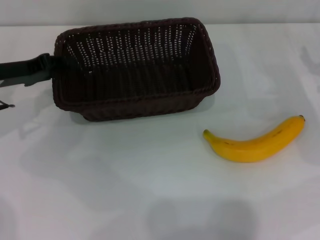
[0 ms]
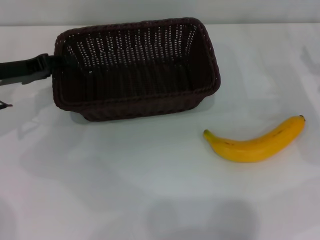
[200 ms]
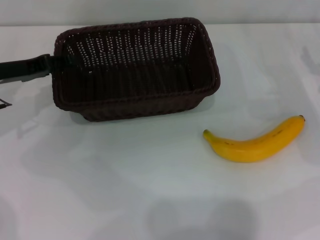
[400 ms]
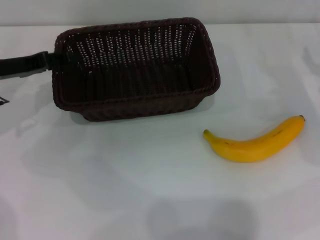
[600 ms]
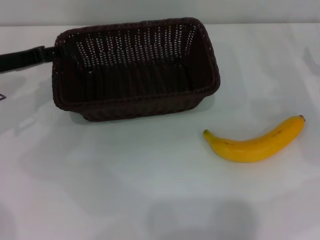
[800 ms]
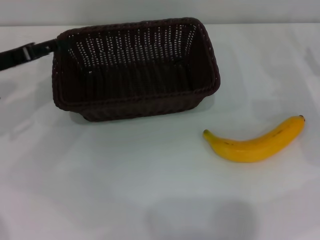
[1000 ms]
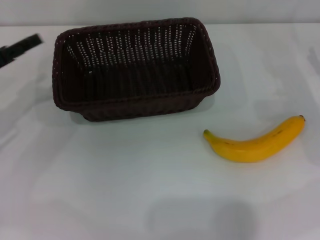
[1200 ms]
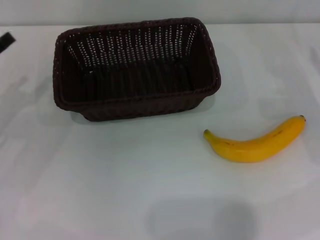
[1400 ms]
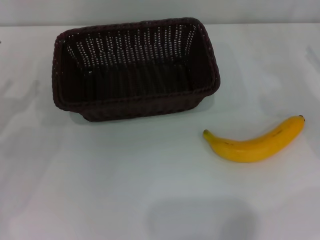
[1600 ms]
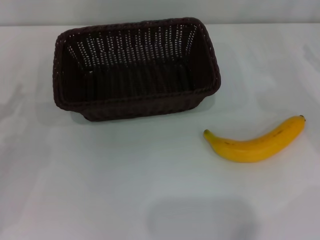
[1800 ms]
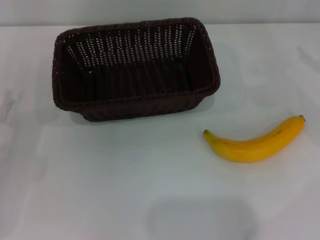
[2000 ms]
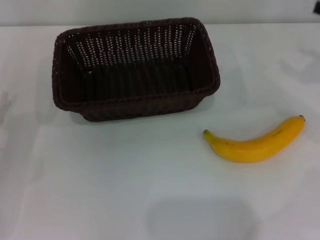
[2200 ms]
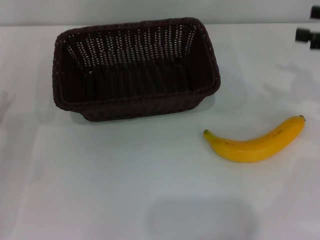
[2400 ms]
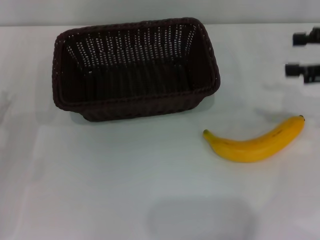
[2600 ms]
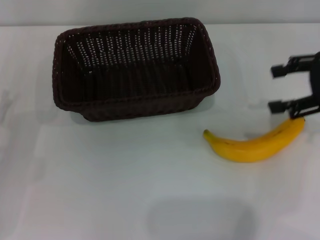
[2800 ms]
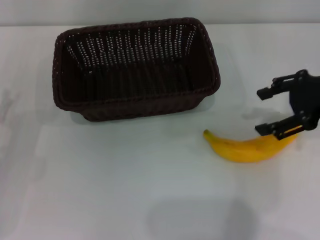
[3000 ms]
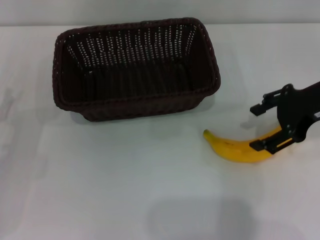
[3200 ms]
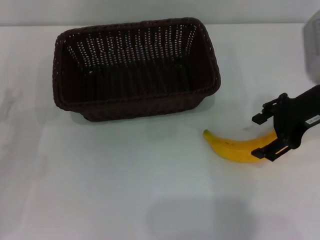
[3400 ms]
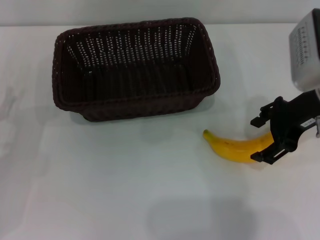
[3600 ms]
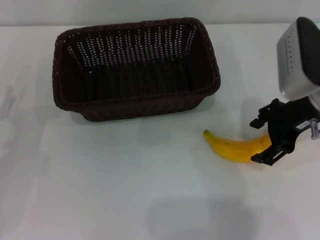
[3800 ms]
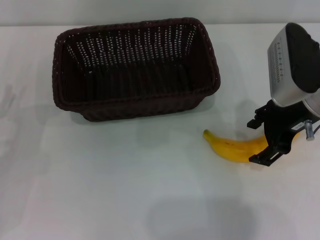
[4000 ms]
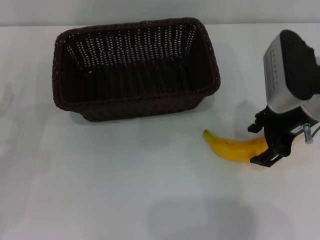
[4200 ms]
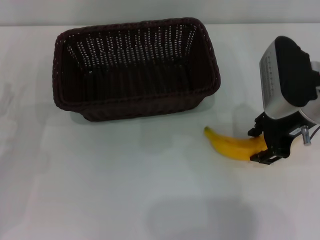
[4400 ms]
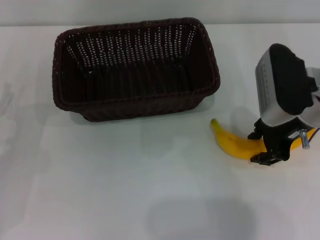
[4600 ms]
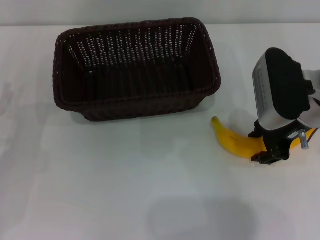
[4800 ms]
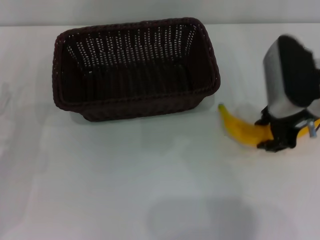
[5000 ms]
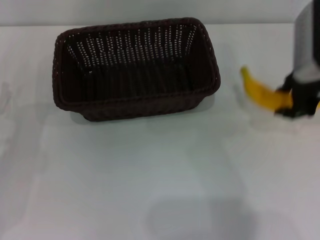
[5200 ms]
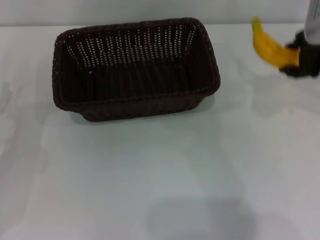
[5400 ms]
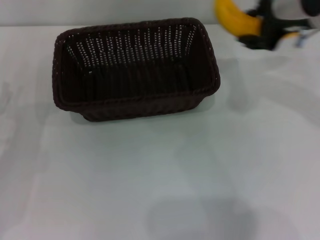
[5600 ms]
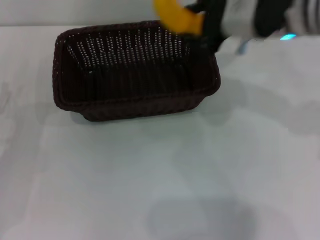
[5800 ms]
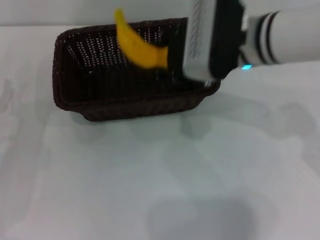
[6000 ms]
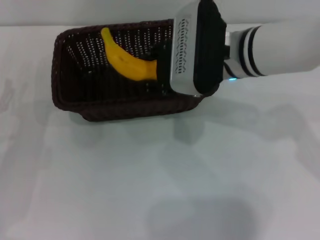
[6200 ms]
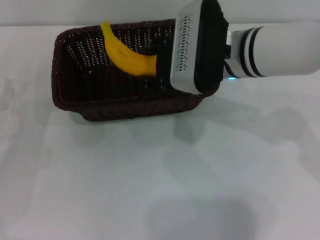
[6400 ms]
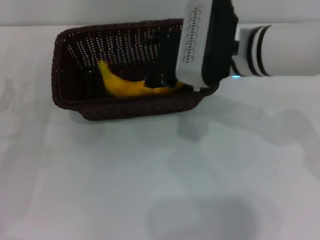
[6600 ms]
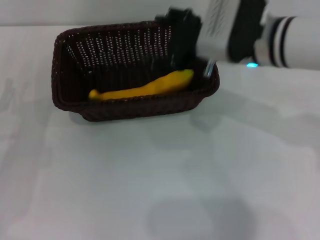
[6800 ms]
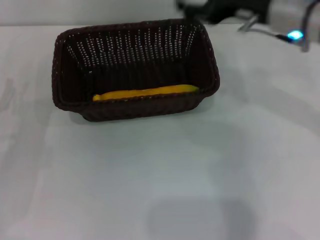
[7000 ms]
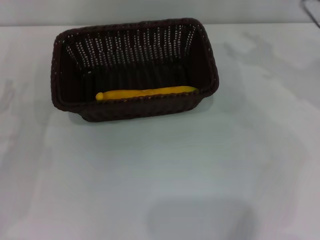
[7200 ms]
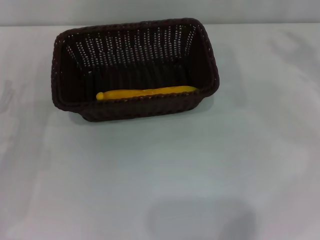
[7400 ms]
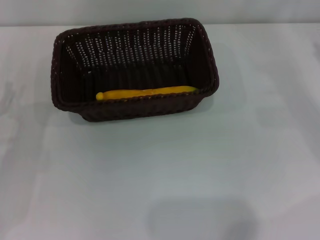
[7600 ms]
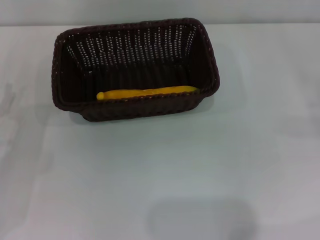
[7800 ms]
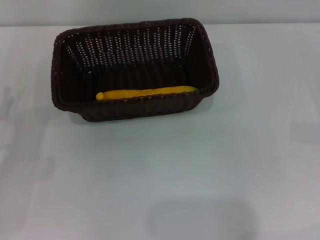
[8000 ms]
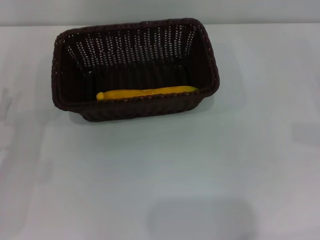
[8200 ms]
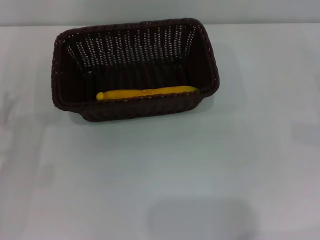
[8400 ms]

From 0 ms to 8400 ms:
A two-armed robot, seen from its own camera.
Step, from 1200 ms to 5200 ms: Pick up the banana with the right gripper.
Step, from 5400 ms to 6800 ms: Place the banana into the dark basket with the right gripper.
From 0 ms to 1400 ms: The left gripper travels backward and to the left by approximately 10 cm, and opens.
From 1400 ms to 2800 ms: The right gripper heads upward, covering roughly 15 cm.
From 2800 ms to 4200 ms: The right gripper goes about 10 cm to the left.
From 4200 ms to 5600 ms: The right gripper goes about 10 cm upward, and closes.
From 5600 ms to 7000 ms: The right gripper reaches some 10 cm to the left, then returns, and opens its fingers.
From 7000 ms to 8400 ms: The right gripper heads to the right and downward, covering approximately 30 cm.

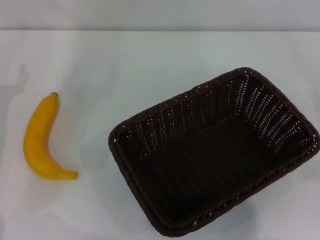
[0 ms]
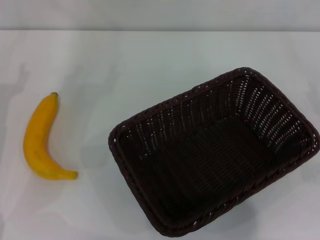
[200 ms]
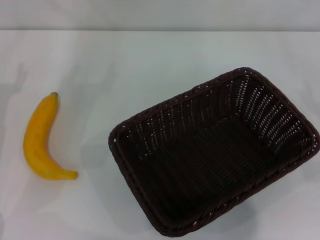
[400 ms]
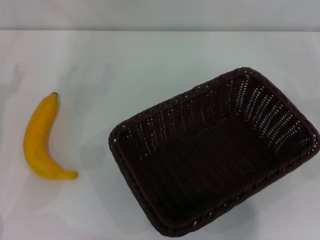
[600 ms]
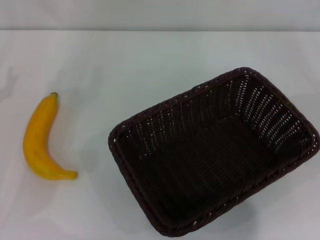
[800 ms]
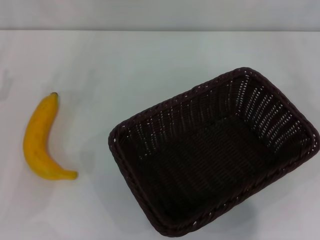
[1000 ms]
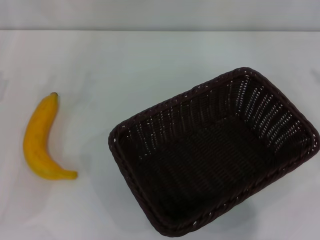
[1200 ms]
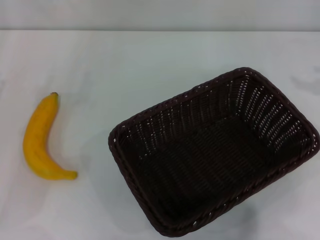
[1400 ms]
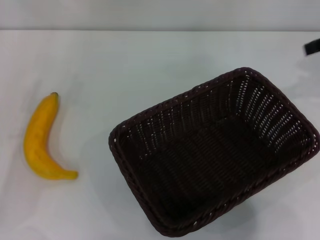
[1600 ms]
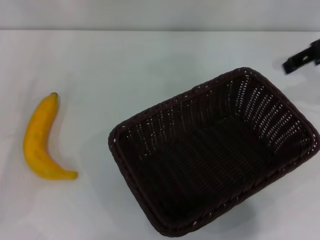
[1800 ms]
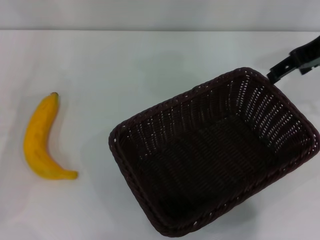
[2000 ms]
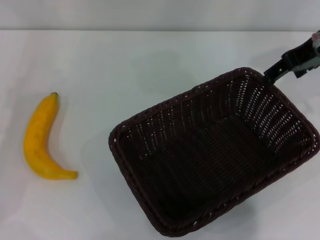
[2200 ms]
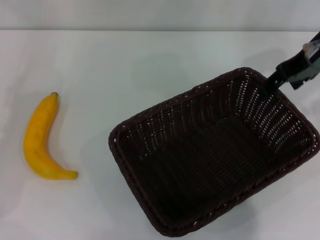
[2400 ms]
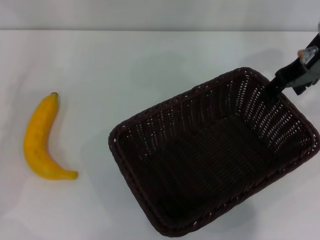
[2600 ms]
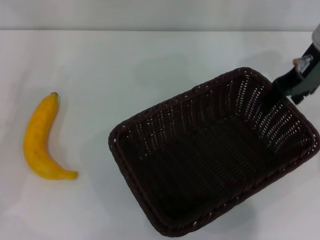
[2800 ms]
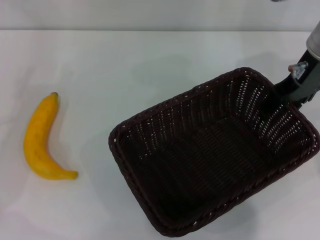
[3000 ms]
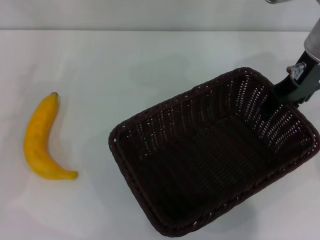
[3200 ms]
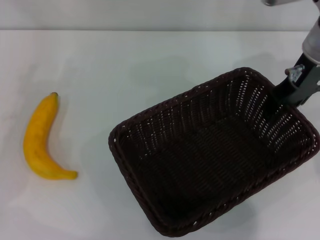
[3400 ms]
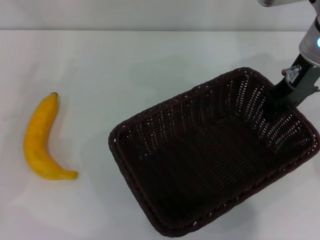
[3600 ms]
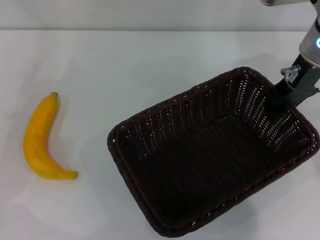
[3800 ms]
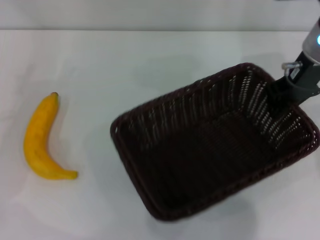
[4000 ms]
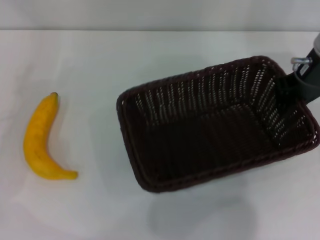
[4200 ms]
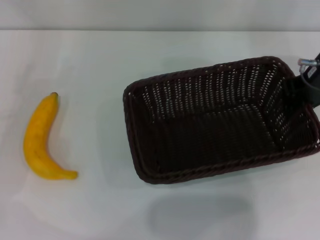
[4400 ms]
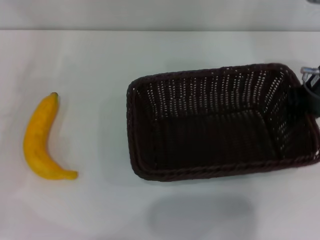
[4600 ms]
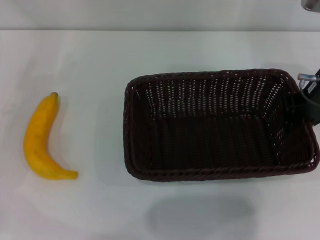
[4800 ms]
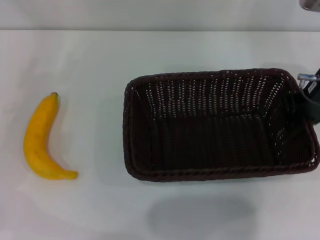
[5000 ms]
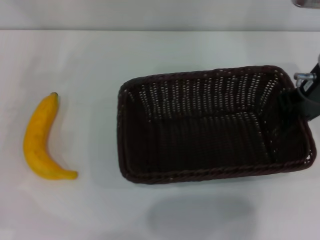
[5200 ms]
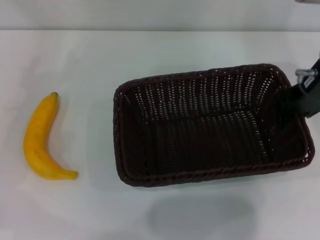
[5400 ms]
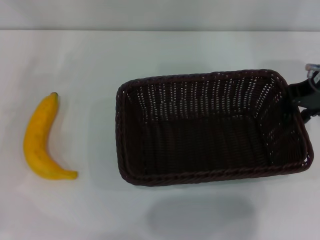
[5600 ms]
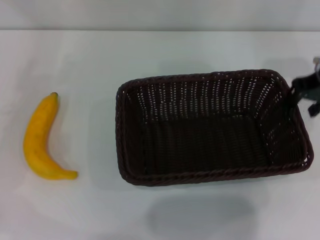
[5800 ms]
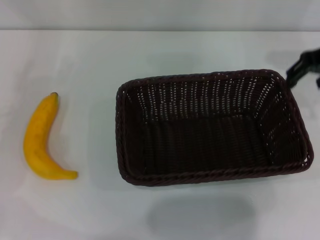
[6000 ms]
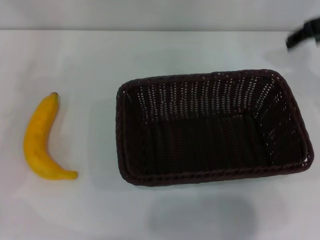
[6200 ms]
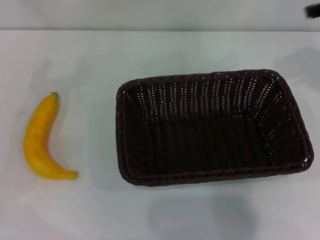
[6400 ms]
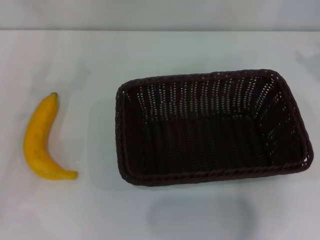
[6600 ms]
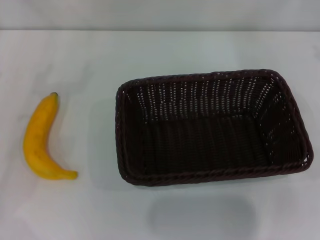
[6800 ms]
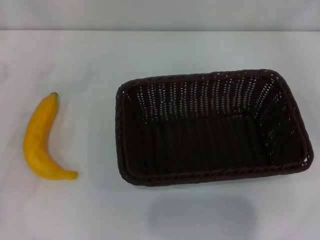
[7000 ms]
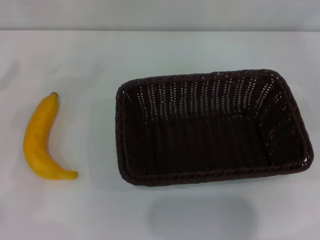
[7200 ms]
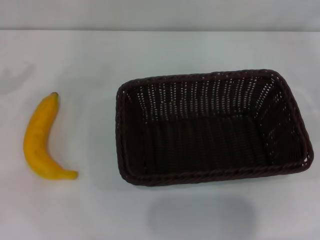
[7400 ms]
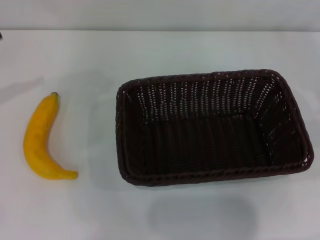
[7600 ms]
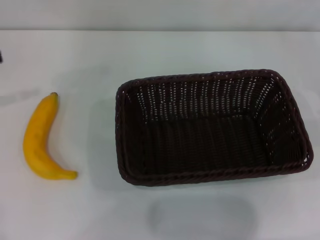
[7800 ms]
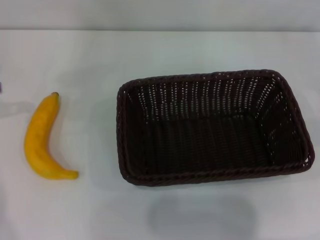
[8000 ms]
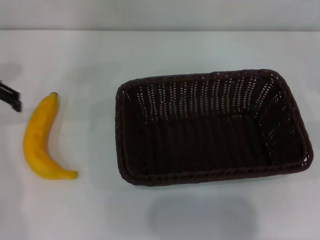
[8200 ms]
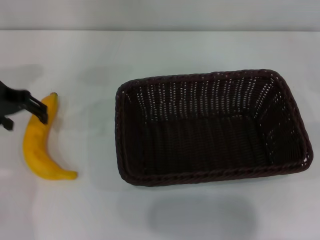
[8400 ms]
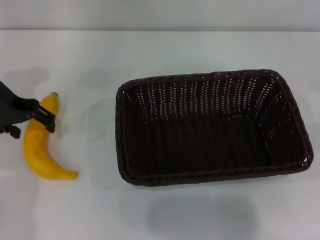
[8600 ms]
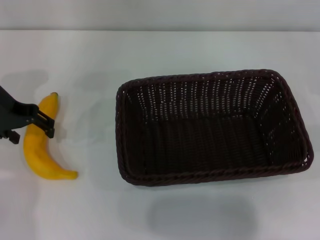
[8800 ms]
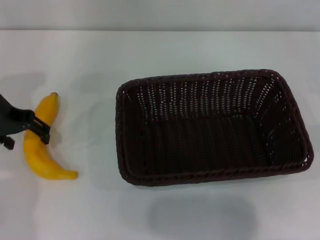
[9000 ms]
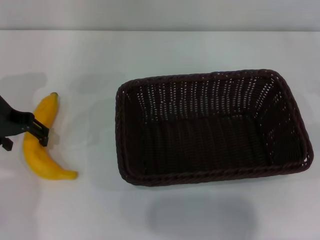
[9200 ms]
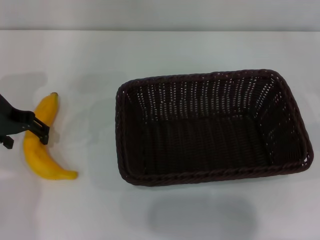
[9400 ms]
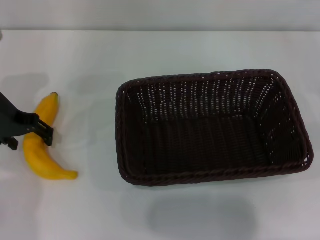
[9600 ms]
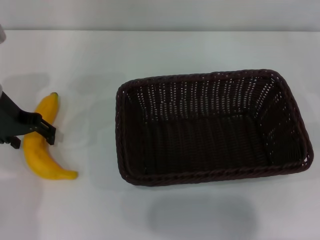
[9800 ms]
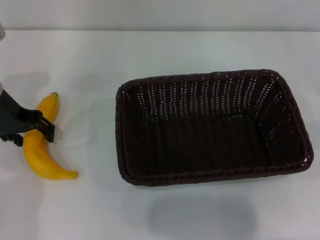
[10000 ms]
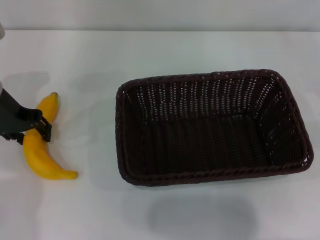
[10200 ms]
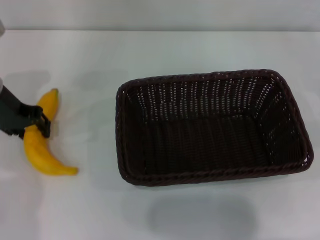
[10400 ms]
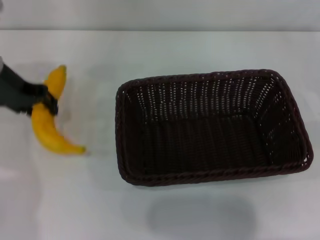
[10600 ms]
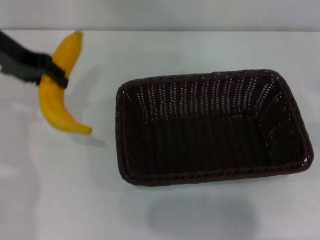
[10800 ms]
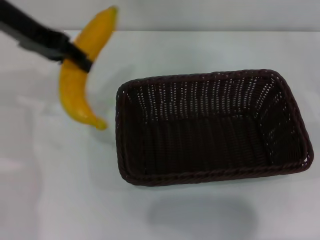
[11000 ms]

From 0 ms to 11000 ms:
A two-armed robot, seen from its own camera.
Step, from 0 ms to 4000 ms: Pick up the dark basket with the right gripper.
Step, from 4400 ms to 6000 ms: Place the dark basket in the center of view with the right gripper.
Step, from 6200 ms to 10600 ms: Pick up the banana with the left gripper.
From 1600 ms to 3200 ms: The right gripper travels to the left and downward by some 15 cm.
From 3200 ms to 4800 ms: The right gripper closes.
From 4800 ms to 6200 ms: The right gripper is displaced upward by about 10 cm, and opens.
From 6200 ms to 7800 ms: The right gripper heads to the right and downward, covering some 25 cm.
From 7800 ms to 9400 ms: The left gripper heads to the right and downward, covering about 10 cm.
From 9400 ms to 11000 ms: The left gripper goes about 10 cm upward, and closes.

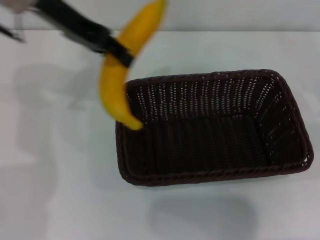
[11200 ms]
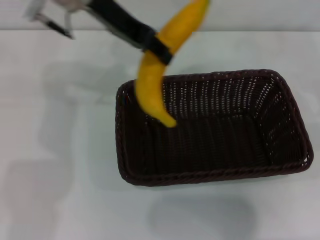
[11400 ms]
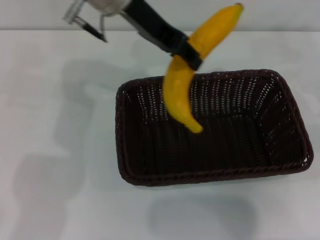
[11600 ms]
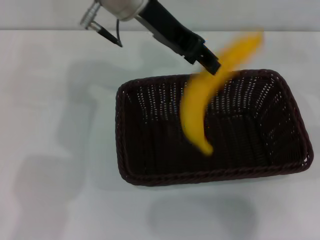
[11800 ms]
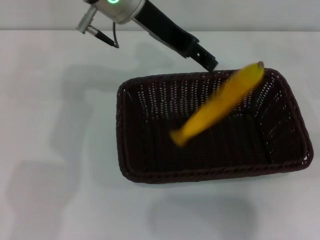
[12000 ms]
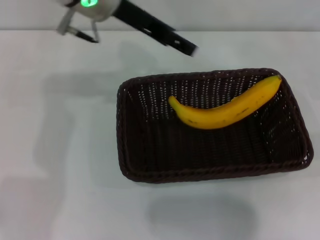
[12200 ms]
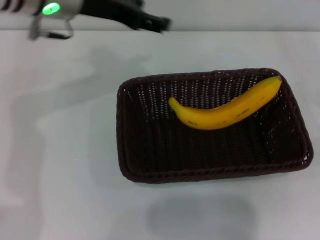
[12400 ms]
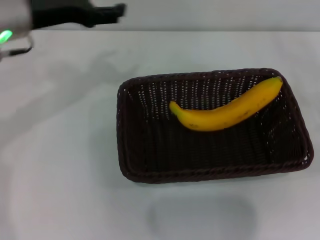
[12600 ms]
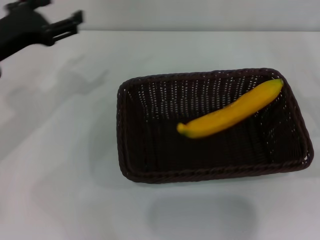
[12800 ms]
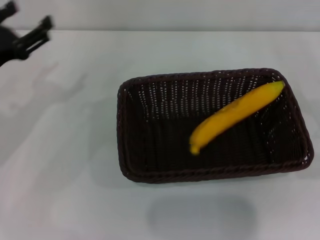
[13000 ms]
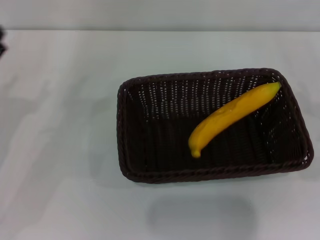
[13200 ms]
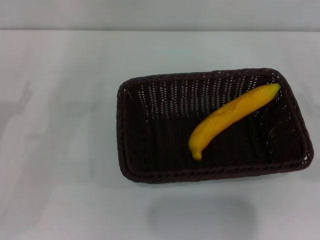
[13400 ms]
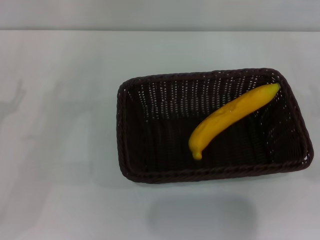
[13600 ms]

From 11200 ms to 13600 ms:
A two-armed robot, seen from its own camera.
Step, from 11200 ms to 12200 ms: Place the banana into the dark basket with the left gripper.
From 11200 ms to 12400 ms: The left gripper goes to the right and returns, roughly 10 cm each way, and opens its fingers.
From 12400 ms to 13600 ms: The left gripper shifts roughly 30 cm to the left, downward and backward, while the right gripper moves some 5 cm.
